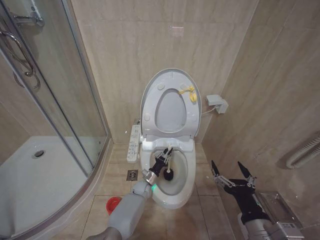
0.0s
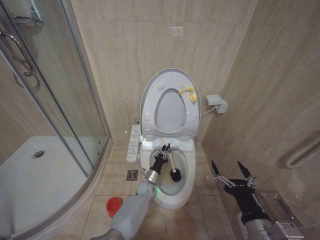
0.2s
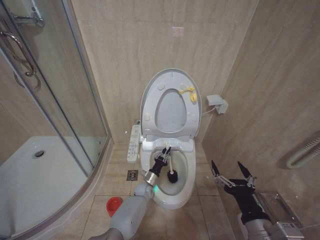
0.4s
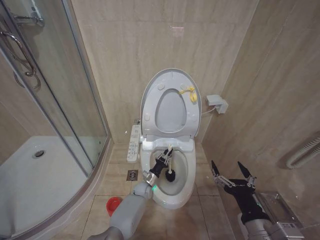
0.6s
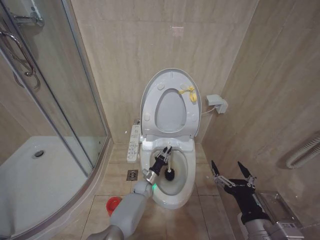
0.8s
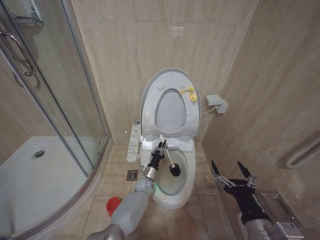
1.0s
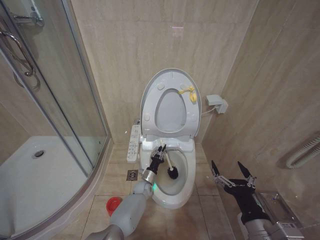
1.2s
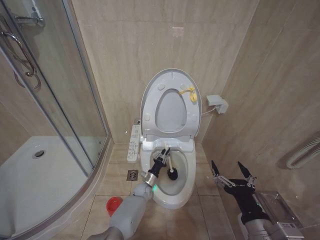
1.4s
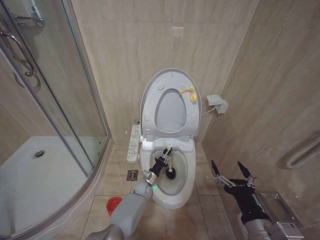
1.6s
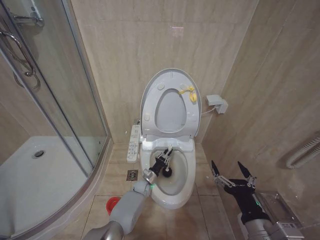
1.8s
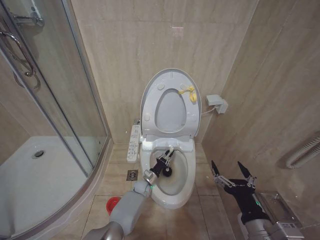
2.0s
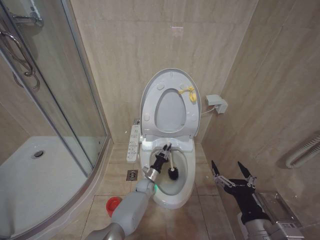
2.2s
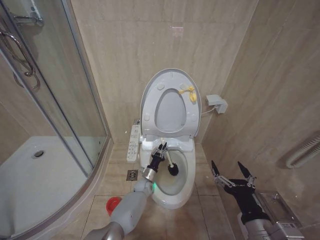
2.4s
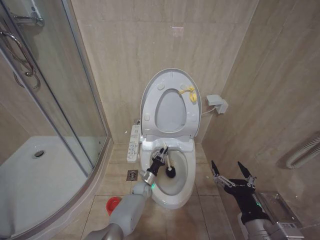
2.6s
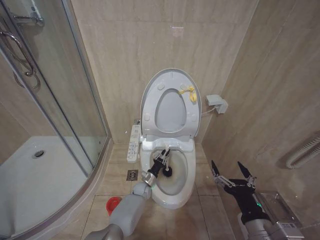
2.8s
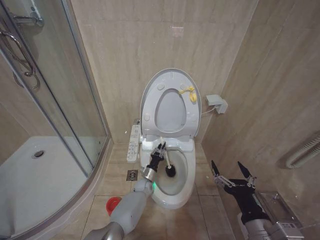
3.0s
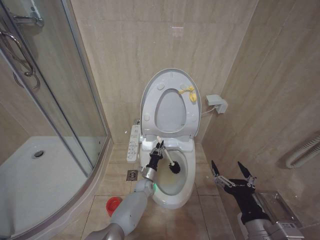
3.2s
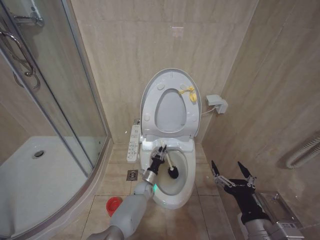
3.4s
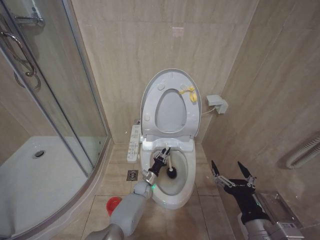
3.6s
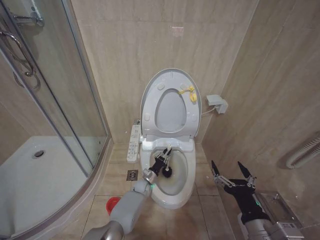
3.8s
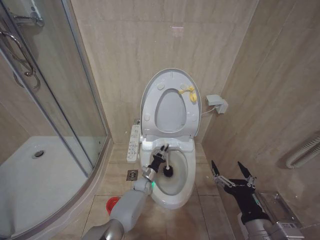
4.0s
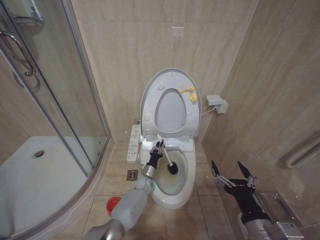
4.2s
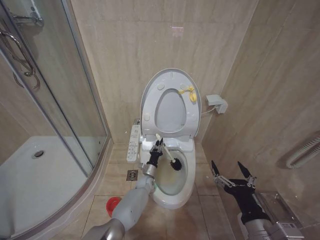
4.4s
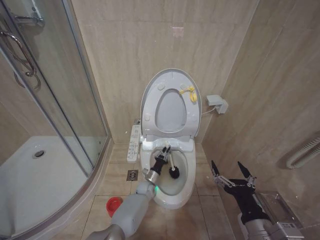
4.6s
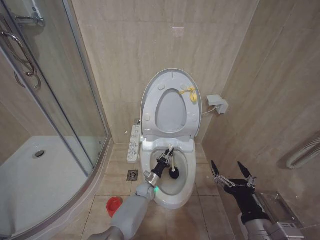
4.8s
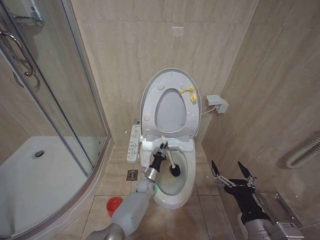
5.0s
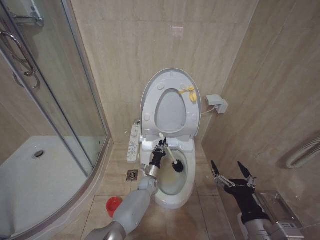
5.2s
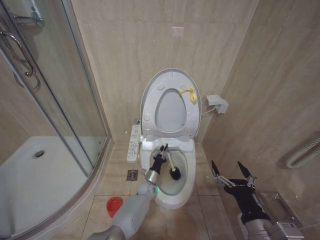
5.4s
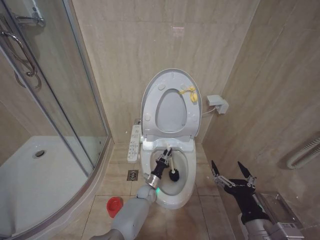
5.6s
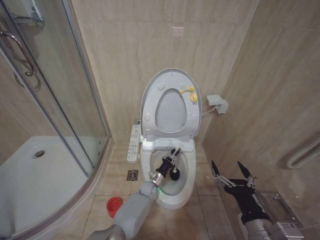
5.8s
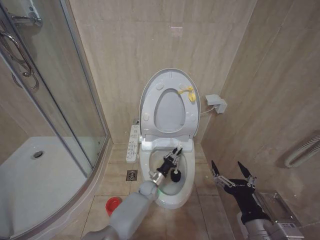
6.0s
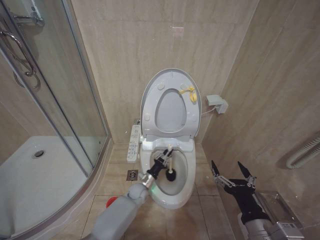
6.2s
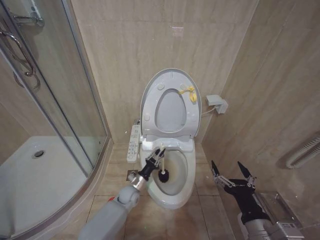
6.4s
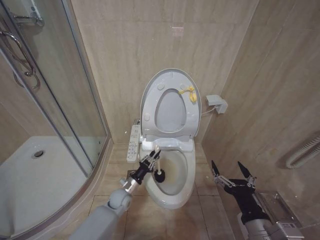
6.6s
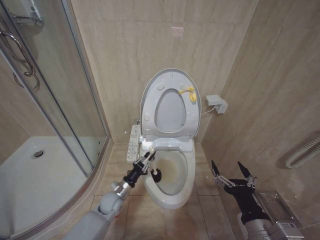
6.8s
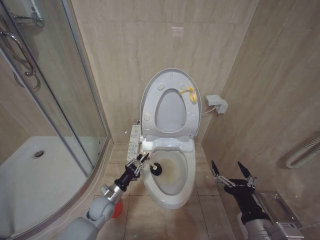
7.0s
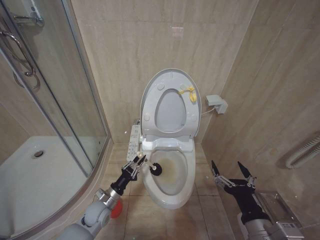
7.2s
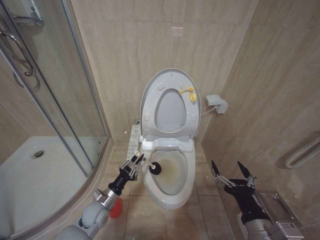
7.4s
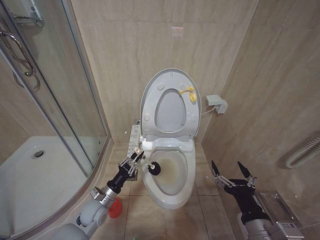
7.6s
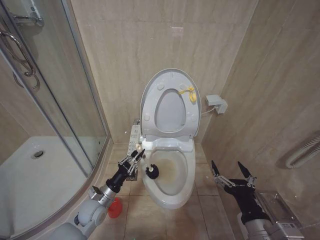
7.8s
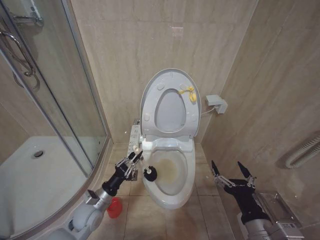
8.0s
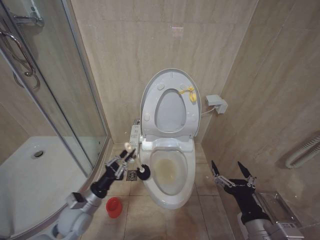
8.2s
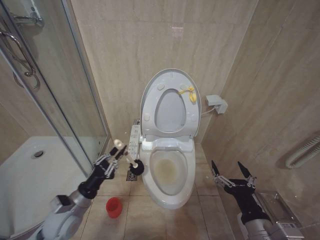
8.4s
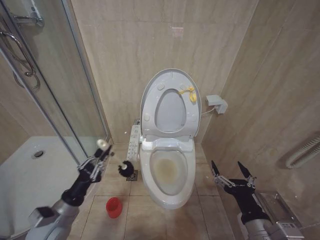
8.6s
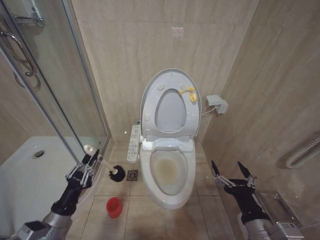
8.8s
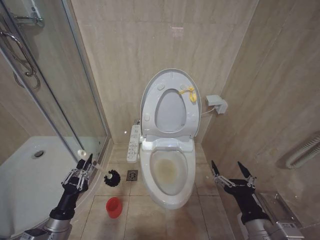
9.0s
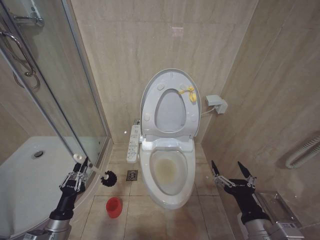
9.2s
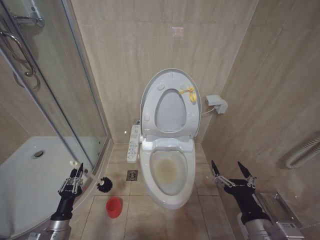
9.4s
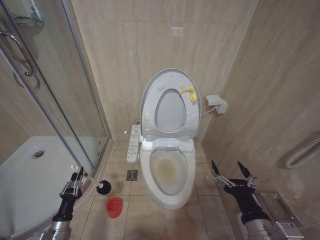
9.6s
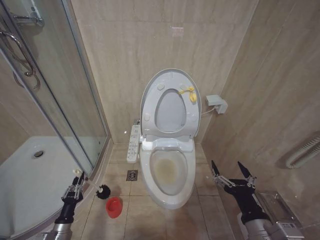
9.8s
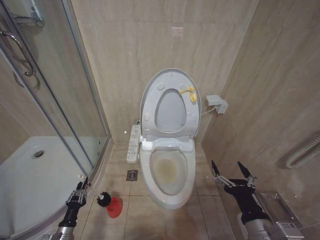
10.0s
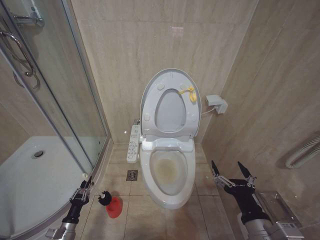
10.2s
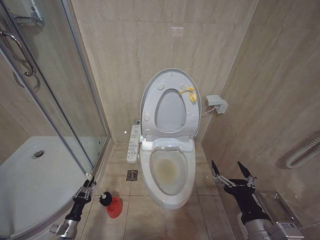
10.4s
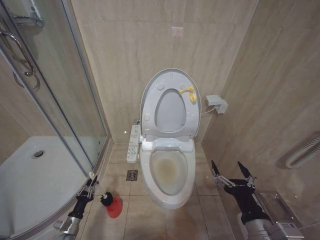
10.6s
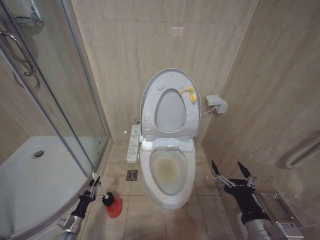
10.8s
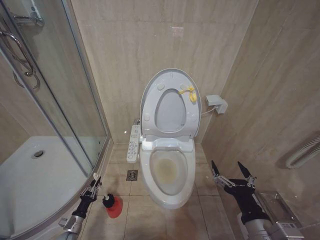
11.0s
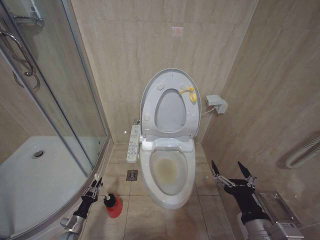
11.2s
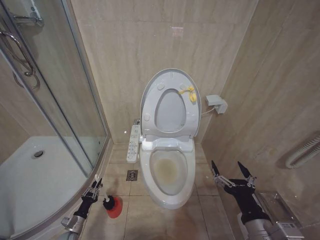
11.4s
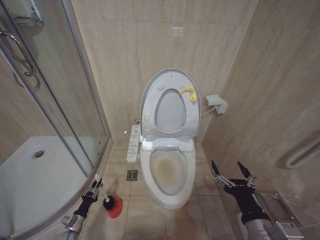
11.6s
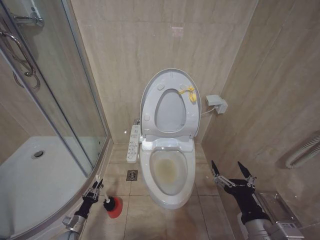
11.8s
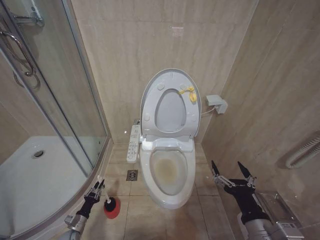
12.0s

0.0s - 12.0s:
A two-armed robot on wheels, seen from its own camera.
Task of the whole recording: Open the toilet lid, clean the toilet bowl with a toilet brush, close the toilet lid, and flush.
3.0s - 4.4s: The grippers make only small movements.
6.0s - 7.6s: The left gripper is displaced to the left, backward and upward by roughly 25 cm.
7.6s - 9.0s: The left gripper moves backward, to the left and upward, some 15 cm.
9.0s - 10.4s: The left gripper heads downward, covering approximately 20 cm.
10.4s - 12.0s: The left gripper moves downward, about 5 cm.

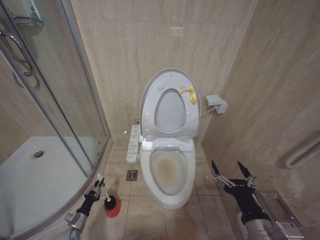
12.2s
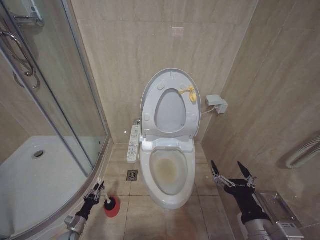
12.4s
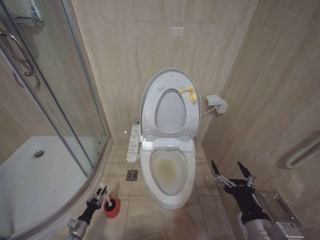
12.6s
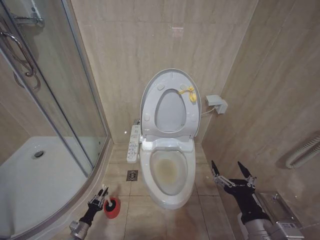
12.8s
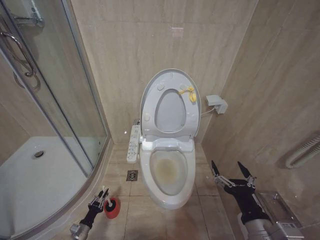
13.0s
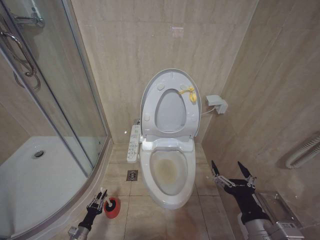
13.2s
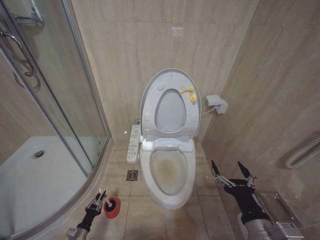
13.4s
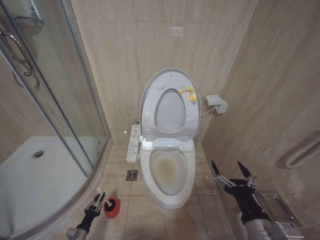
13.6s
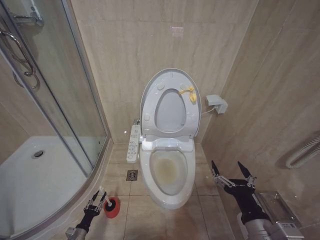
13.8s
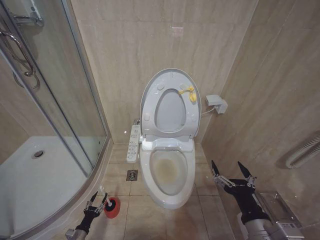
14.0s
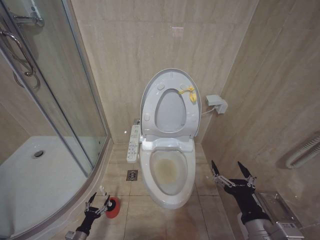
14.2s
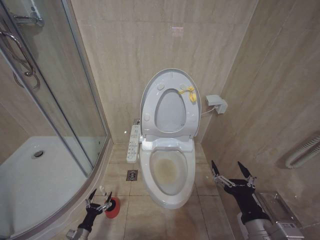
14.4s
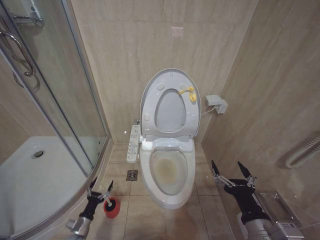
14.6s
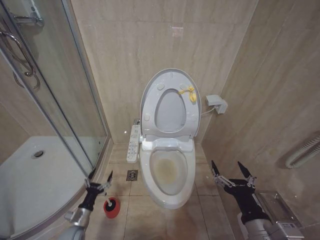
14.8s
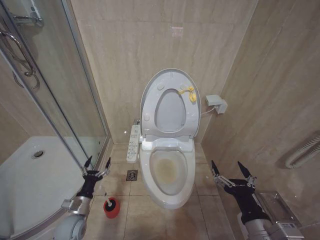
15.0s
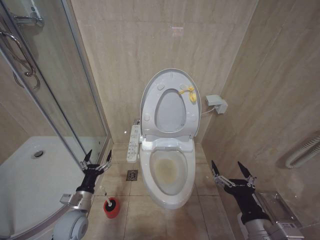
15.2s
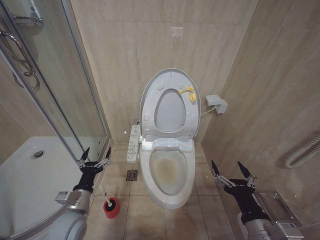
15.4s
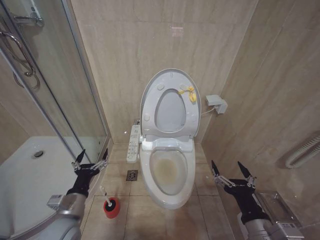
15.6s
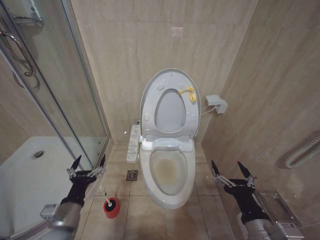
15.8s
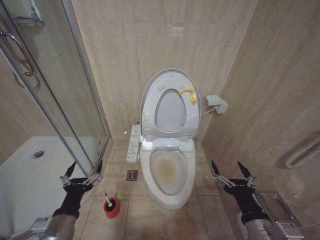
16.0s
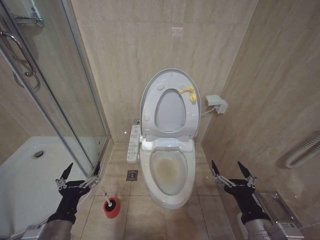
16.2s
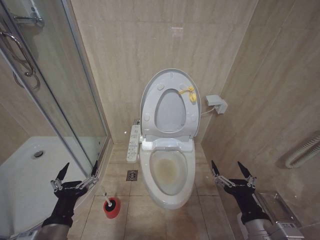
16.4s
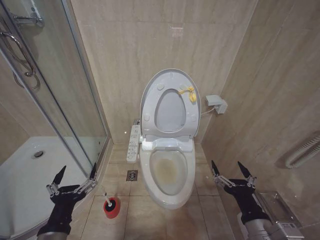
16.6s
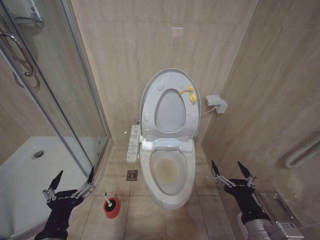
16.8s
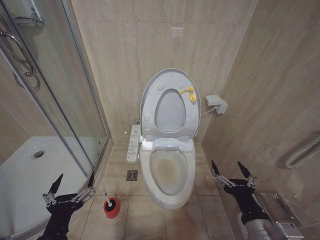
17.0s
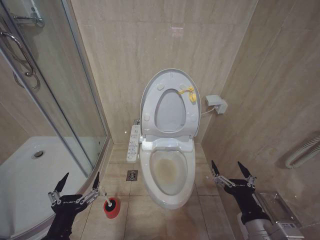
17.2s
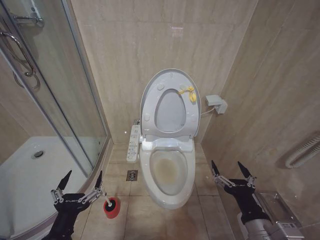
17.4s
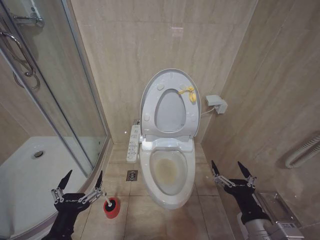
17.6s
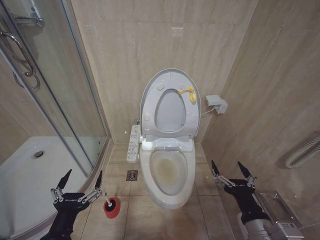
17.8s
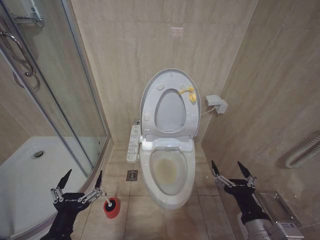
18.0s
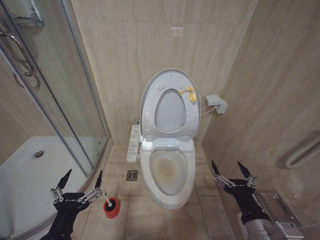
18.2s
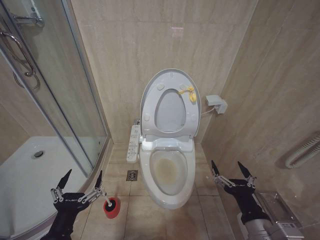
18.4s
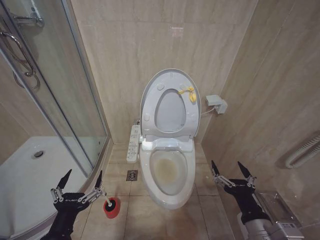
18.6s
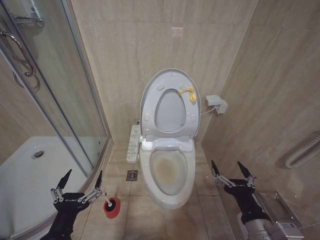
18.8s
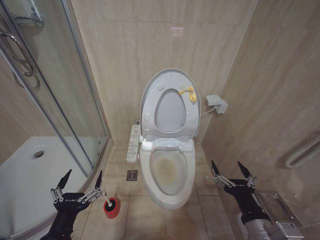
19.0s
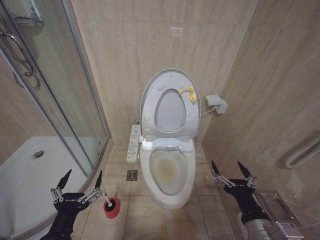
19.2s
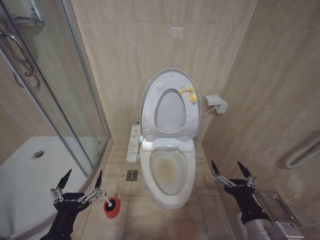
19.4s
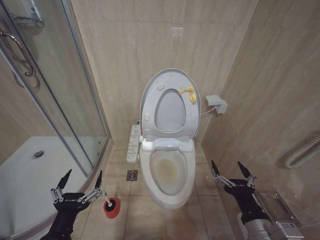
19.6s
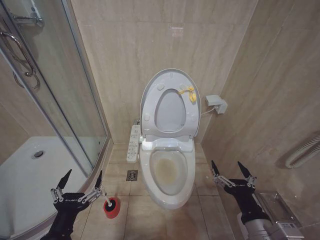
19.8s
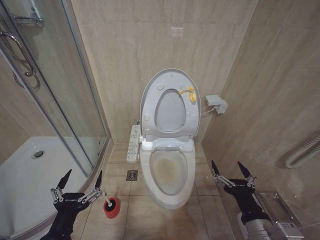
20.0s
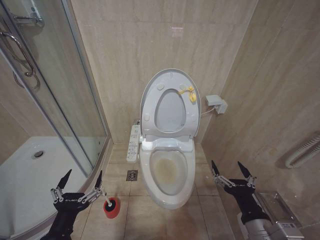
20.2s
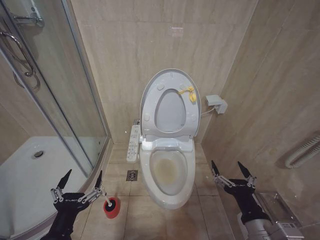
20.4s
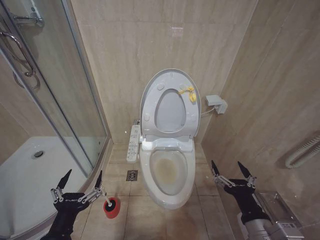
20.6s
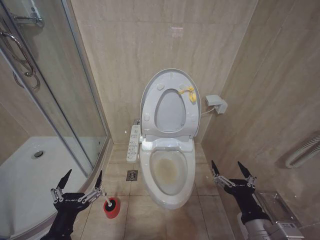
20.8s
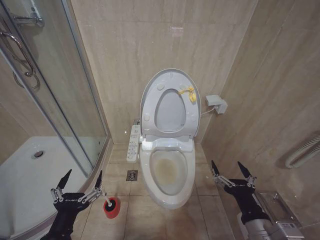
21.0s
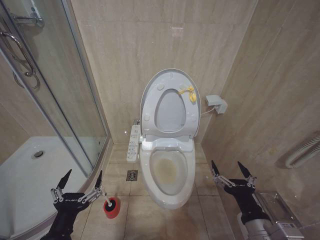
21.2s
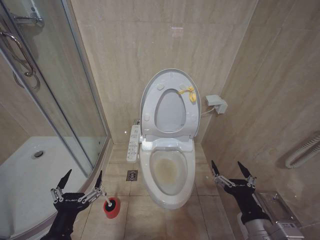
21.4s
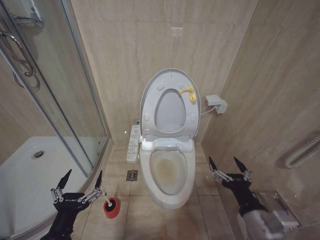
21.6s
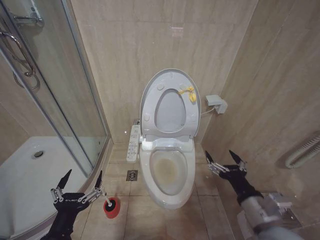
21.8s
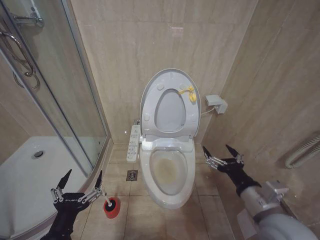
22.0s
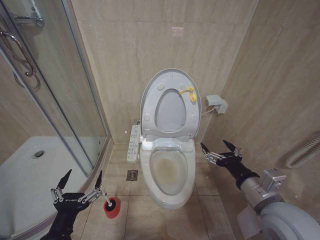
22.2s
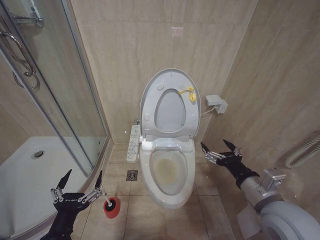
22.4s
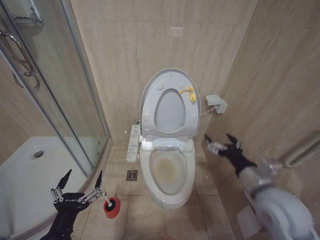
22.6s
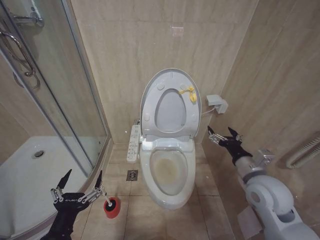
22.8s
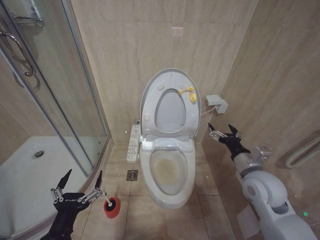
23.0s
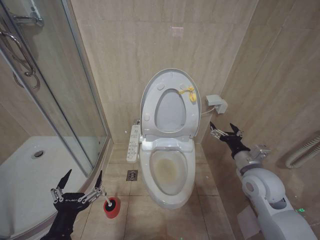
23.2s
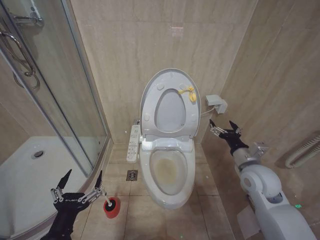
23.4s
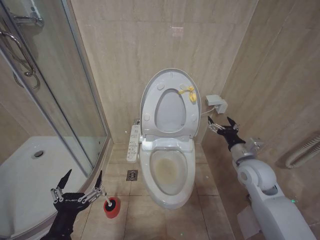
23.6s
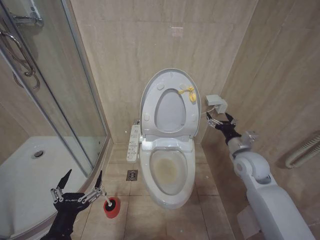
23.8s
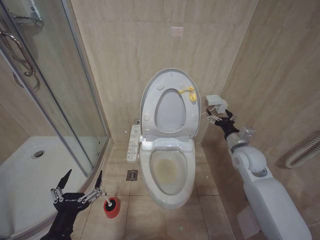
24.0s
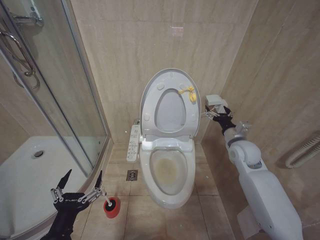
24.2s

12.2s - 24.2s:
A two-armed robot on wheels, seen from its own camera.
Task of the whole recording: Open the toilet lid, clean the toilet bowl with a toilet brush, close the toilet lid, and flush.
12.2s - 13.8s: The left gripper heads backward, covering about 5 cm.
13.8s - 15.2s: The left gripper goes some 25 cm upward, and opens its fingers.
15.2s - 16.6s: The left gripper goes approximately 20 cm upward and backward.
16.6s - 18.2s: There are only small adjustments of the grippers.
18.2s - 21.2s: Both grippers stay put.
21.2s - 22.6s: The right gripper is displaced forward and upward by approximately 10 cm.
22.6s - 24.2s: The right gripper shifts some 20 cm forward.
